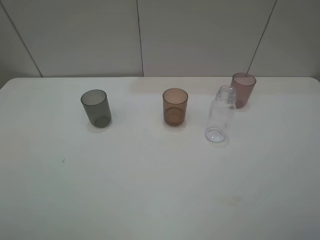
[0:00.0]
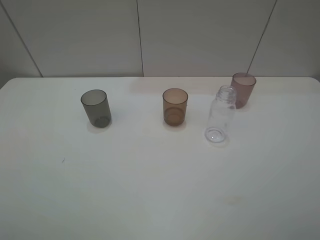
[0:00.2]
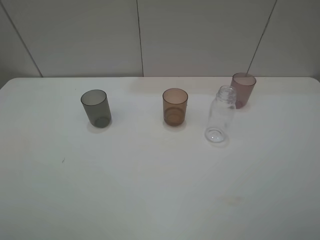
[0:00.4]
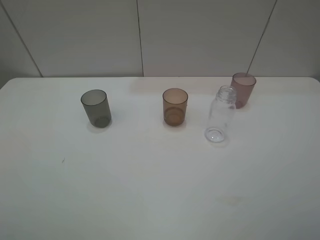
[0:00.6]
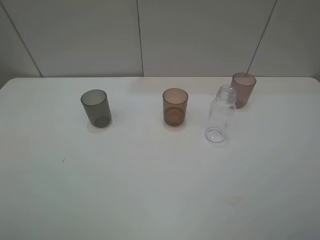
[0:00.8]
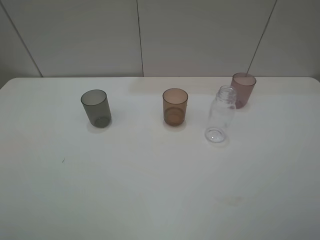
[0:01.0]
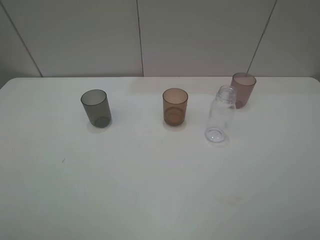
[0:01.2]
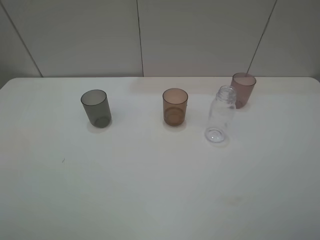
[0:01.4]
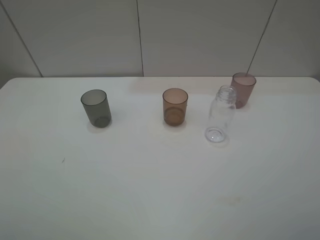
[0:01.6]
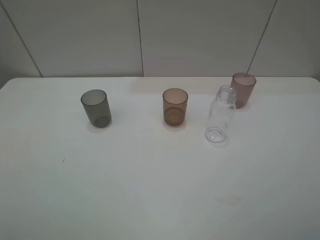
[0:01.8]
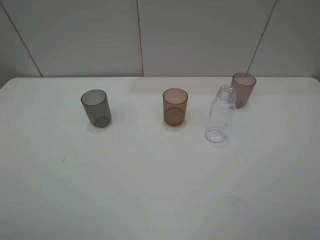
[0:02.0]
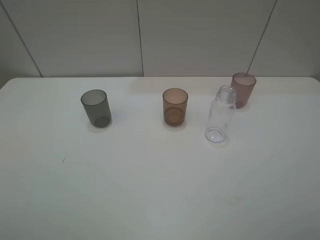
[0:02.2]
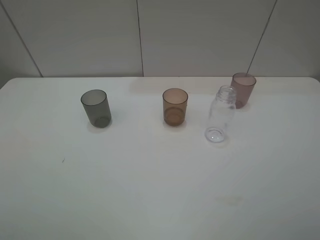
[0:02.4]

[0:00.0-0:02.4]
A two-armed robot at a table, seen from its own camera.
Task of the whole recording: pick up the bottle filled with water and pour water into the middle cup of the three cups.
0:01.2 to 0:02.4: Neither gripper changes place.

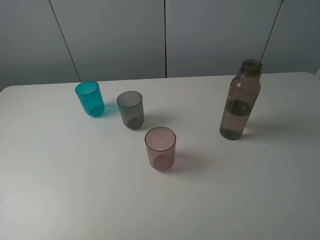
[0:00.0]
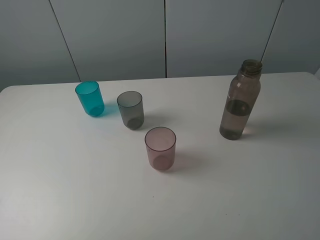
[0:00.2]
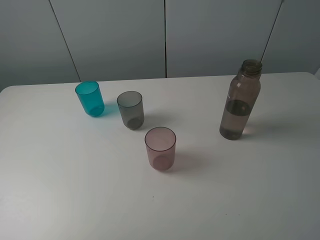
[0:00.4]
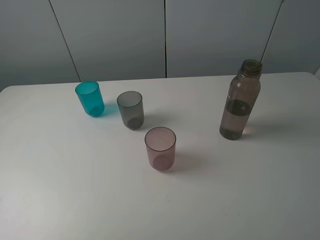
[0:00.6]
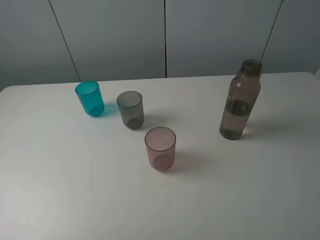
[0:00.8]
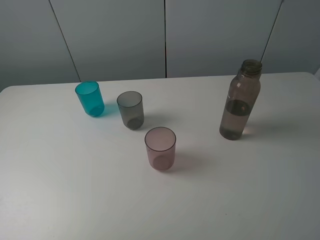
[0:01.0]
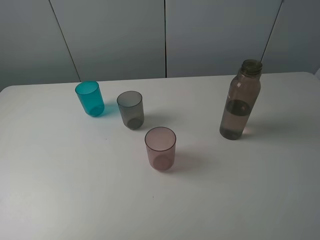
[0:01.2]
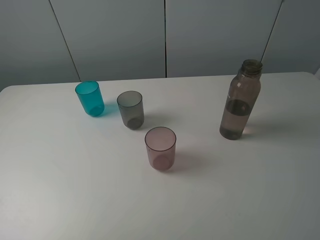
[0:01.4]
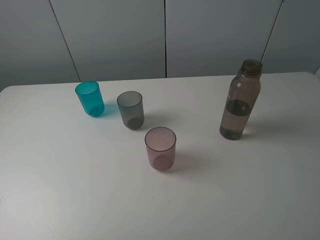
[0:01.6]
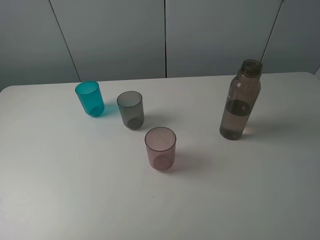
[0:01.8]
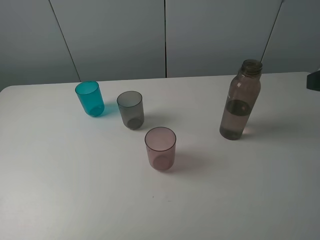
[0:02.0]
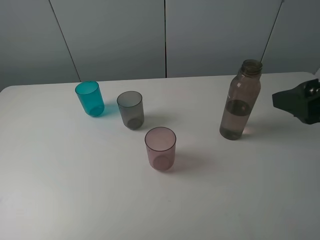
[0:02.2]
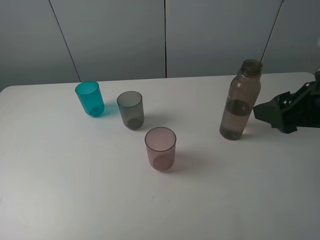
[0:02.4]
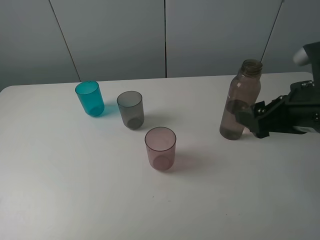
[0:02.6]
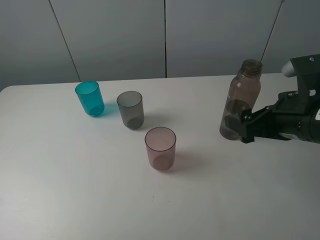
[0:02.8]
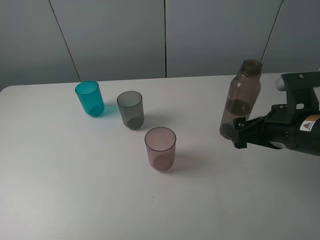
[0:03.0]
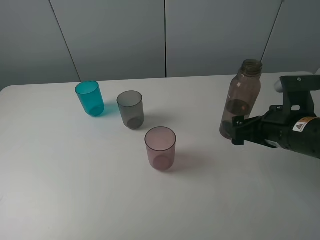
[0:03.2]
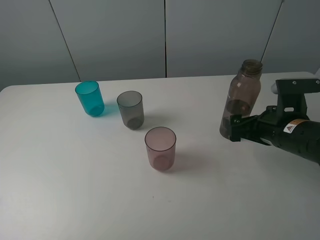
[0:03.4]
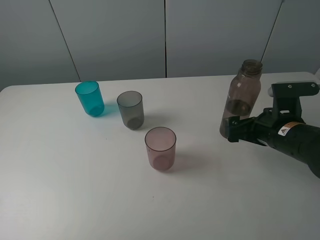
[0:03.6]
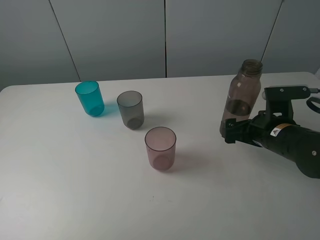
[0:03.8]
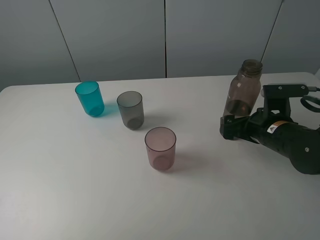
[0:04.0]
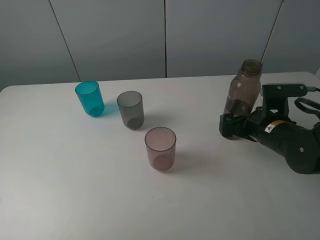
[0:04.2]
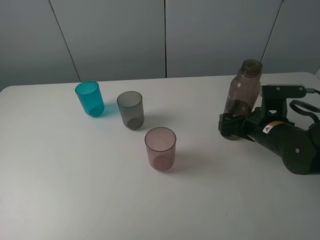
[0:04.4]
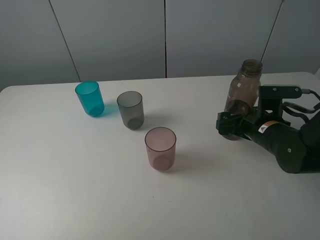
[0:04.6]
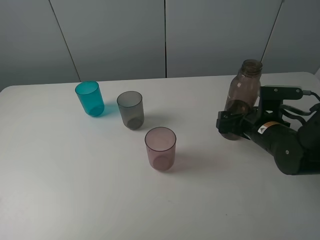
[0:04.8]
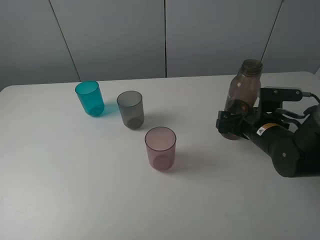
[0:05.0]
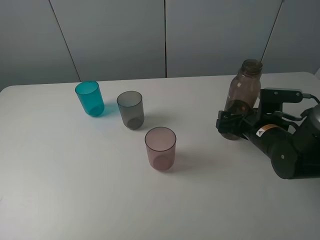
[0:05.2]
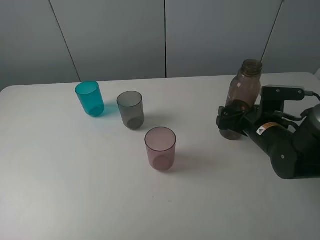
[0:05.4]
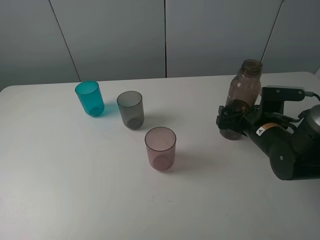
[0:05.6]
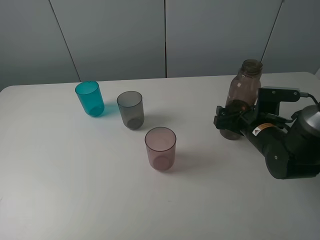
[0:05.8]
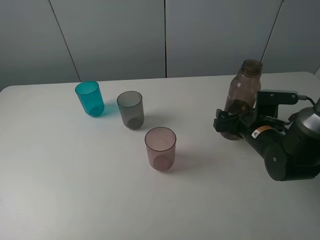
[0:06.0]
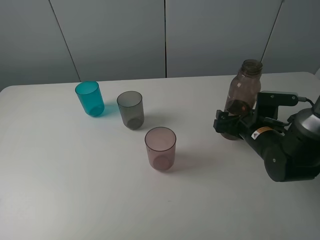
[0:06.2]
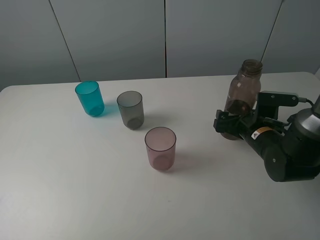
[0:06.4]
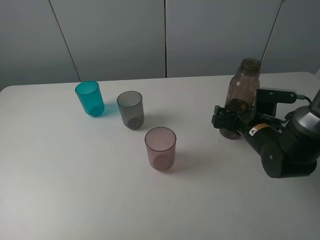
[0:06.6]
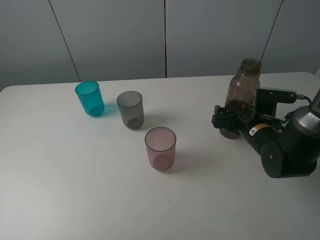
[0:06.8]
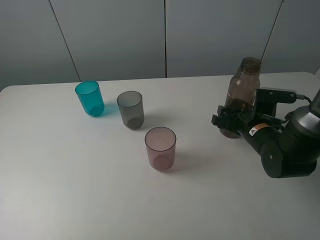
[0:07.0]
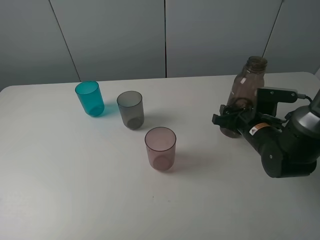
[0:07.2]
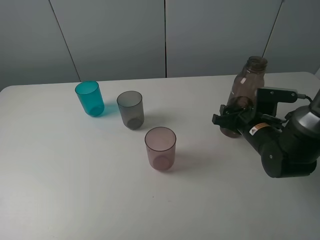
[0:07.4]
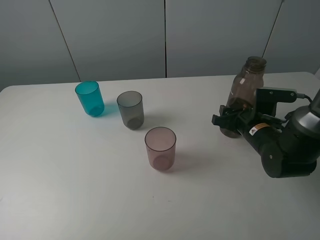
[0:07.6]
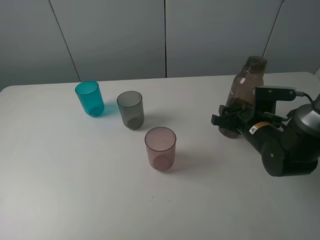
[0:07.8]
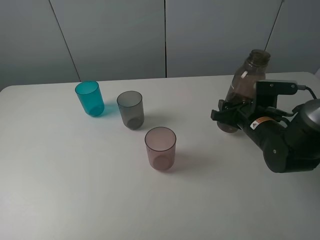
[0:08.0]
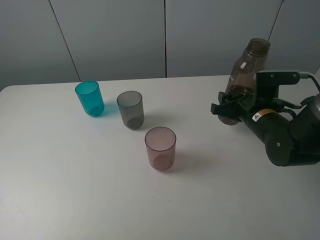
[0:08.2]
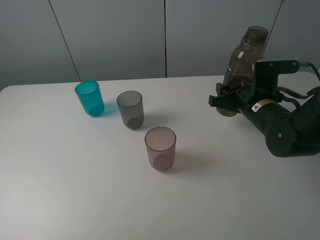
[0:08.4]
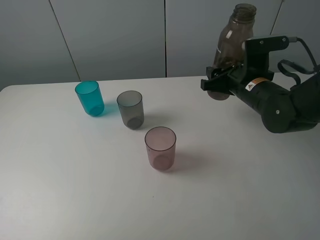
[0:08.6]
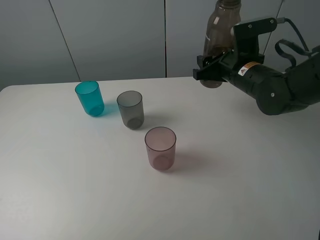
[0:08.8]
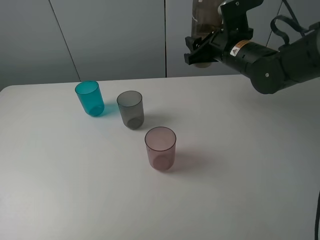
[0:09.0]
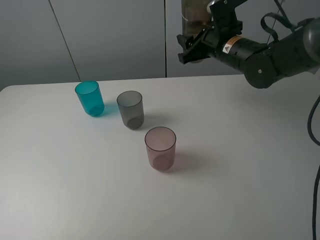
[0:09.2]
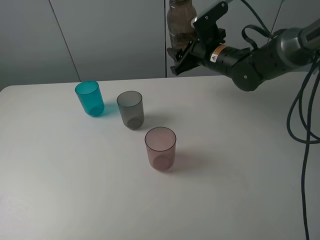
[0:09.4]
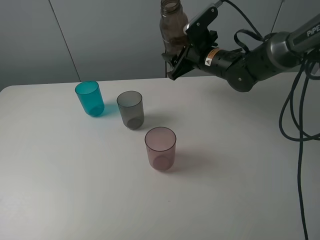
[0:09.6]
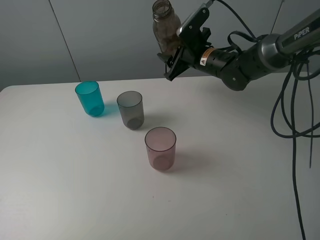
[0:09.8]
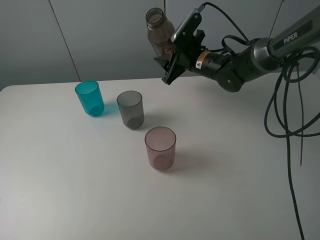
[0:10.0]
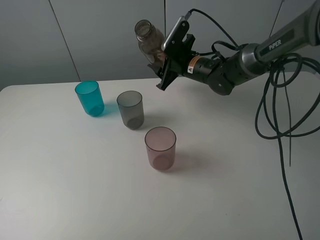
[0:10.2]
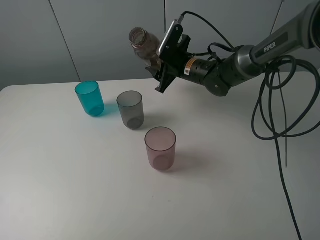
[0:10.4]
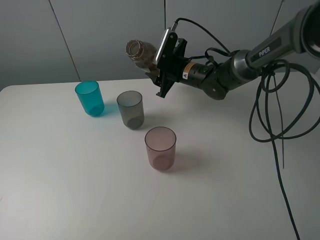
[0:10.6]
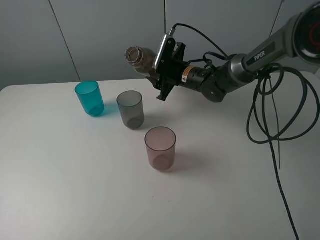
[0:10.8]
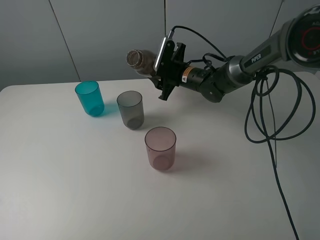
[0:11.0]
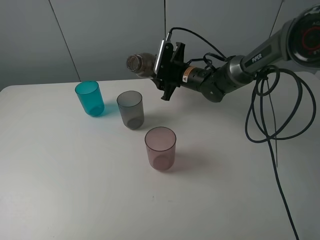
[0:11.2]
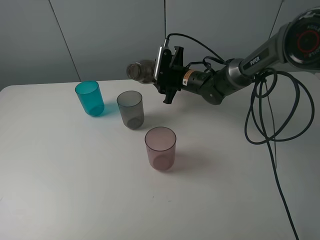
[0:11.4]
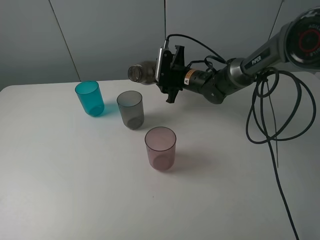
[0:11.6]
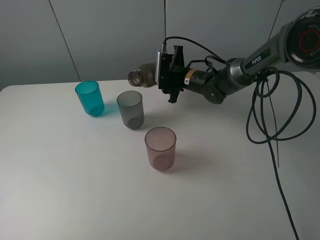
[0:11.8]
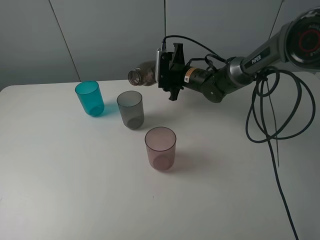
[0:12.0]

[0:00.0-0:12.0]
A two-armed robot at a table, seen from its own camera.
Task of the whole recording: pick up the bottle filled with water and pour water into the middle cup of the three cups.
Step, 0:00.0 to 0:07.2: Grasp the brown bottle with the right gripper.
0:01.6 to 0:03.0: The right gripper moves downward and forward, roughly 20 cm, and opens its fingers.
0:03.0 to 0:04.4: The right gripper is displaced downward and forward by some 10 cm.
0:04.4 to 0:06.0: The grippers stay close to where they were, moving slightly.
0:06.0 to 0:07.6: The right gripper closes up.
0:07.6 to 0:09.0: The right gripper travels upward, forward and to the left by roughly 20 cm.
0:09.0 to 0:10.4: The right gripper travels downward, to the left and forward by approximately 15 cm.

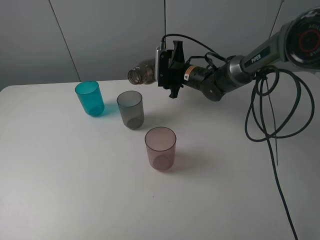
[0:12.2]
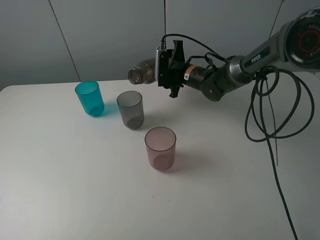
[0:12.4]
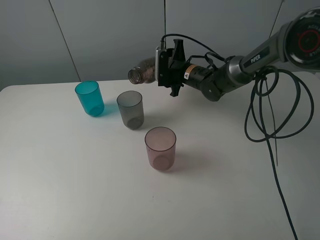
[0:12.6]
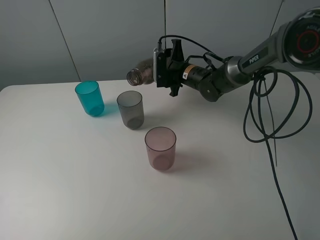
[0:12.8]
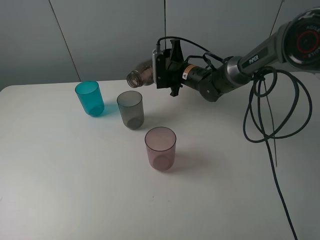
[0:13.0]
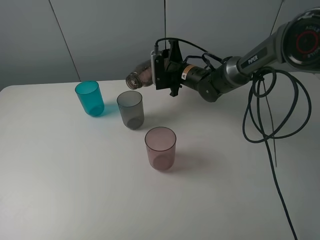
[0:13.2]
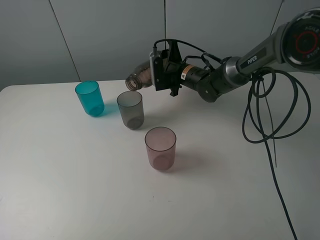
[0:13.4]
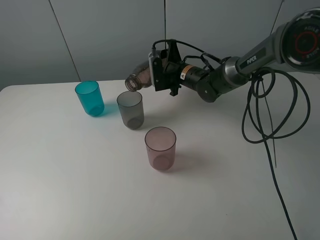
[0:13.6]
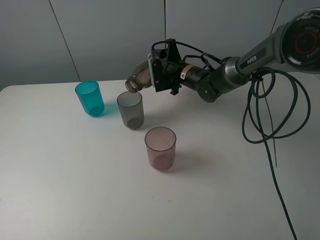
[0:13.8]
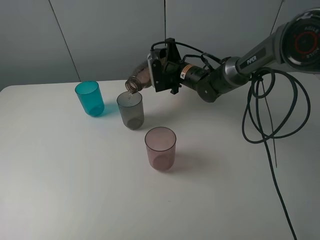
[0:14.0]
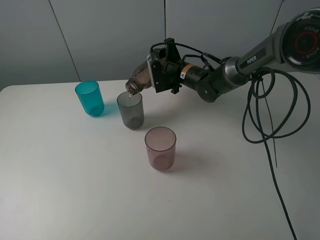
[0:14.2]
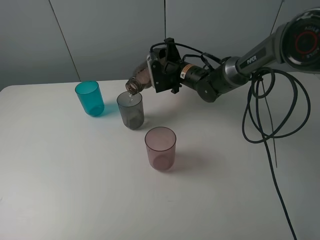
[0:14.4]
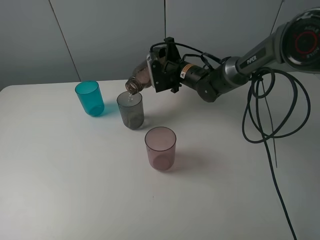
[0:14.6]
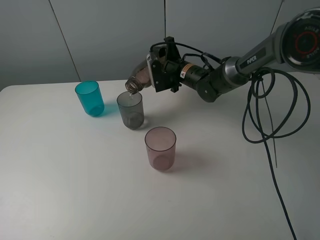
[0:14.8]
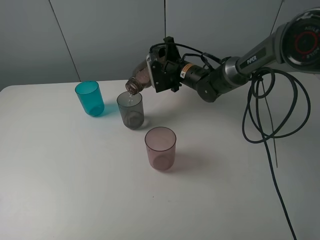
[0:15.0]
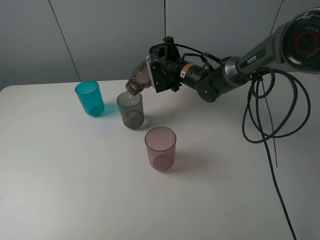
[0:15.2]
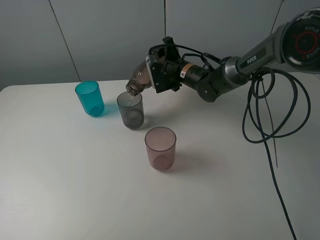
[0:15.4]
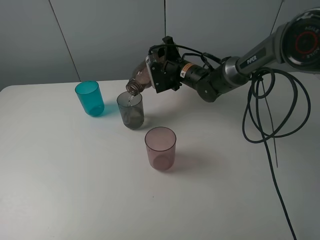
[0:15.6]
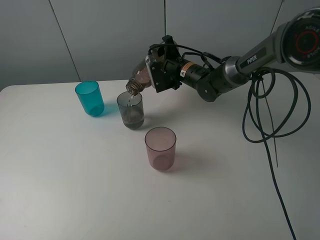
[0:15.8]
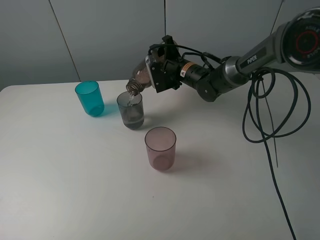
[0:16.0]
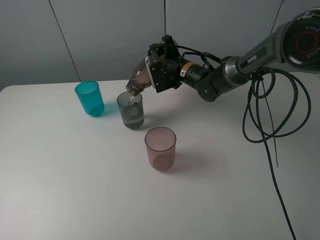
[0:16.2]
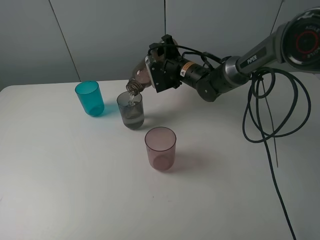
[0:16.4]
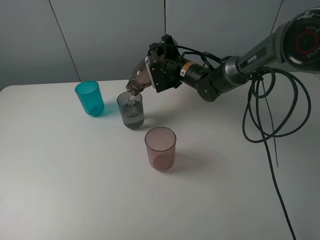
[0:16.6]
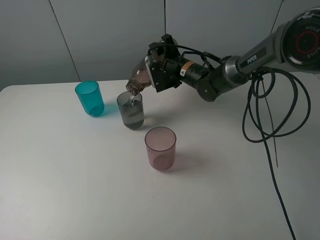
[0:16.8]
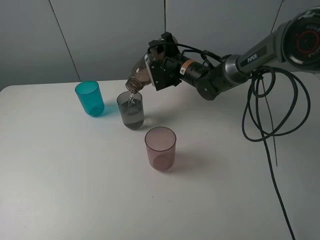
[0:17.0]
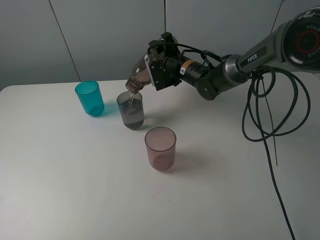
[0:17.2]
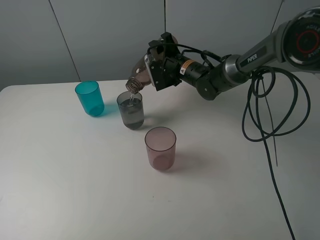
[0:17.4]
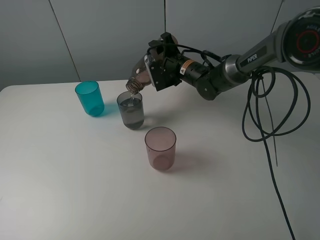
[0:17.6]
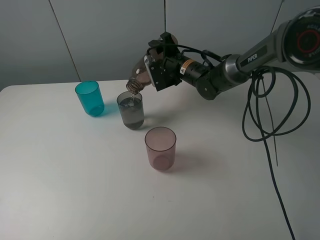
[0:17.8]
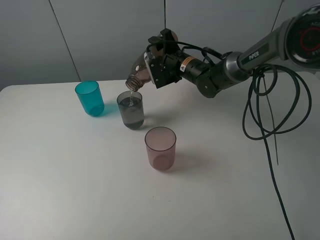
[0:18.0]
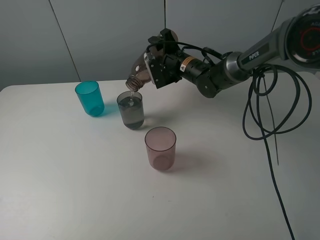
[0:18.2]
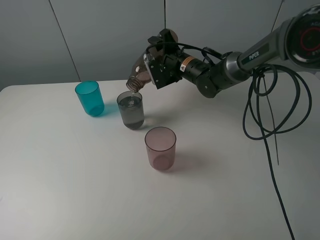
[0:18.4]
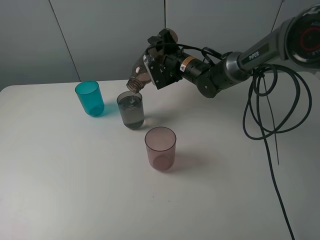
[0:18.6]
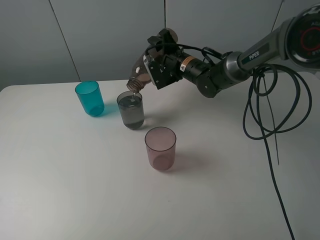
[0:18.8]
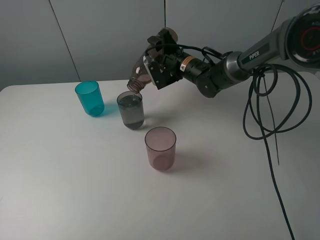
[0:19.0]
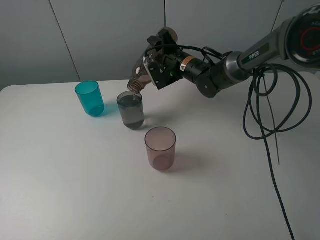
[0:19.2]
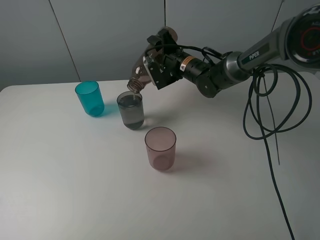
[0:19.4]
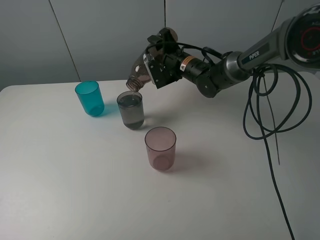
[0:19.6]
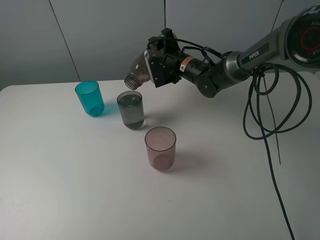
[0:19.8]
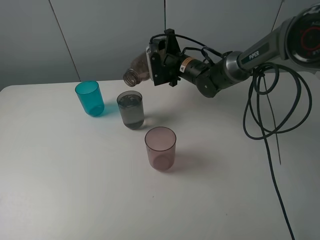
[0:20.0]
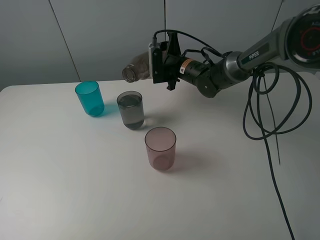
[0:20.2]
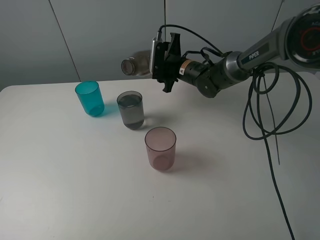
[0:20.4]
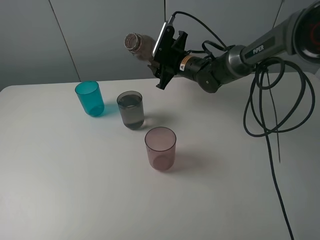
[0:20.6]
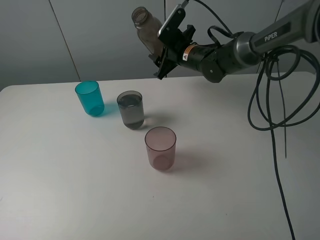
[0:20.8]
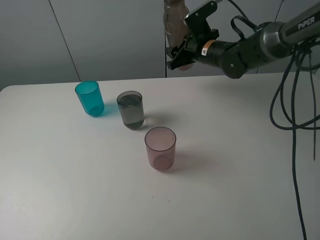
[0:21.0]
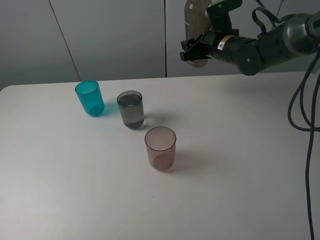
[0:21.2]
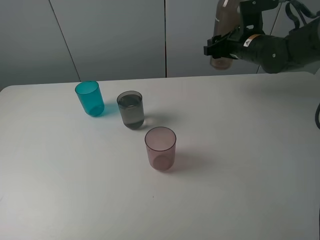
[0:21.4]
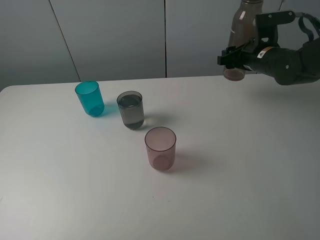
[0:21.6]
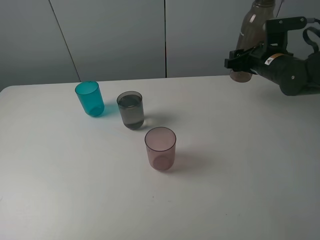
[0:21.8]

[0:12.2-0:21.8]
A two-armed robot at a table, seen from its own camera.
Task of the whole recording: pick up the bottle filled with water and pour water into the middle cup of the three cups.
Step, 0:12.2 to 0:19.8: Pour water from transparent bottle to grey cup with the right gripper.
0:12.2 to 0:13.8: The grippers make only small movements.
0:13.8 to 0:15.4: There are only small adjustments of the grippers.
0:15.4 to 0:17.0: Both grippers stay about where they are.
0:17.0 to 0:18.6: The grippers make only small movements.
0:20.2 to 0:21.8: The right gripper heads to the right, covering approximately 20 cm.
